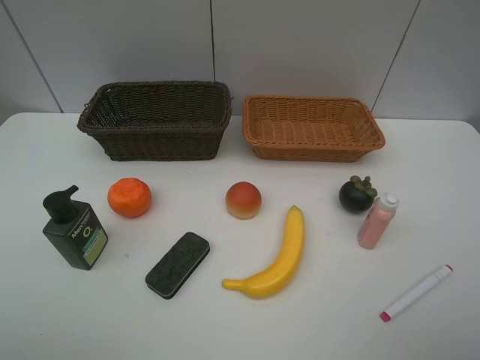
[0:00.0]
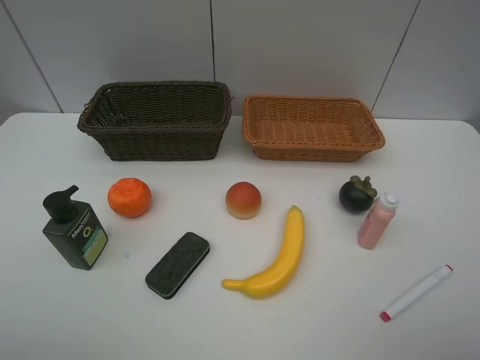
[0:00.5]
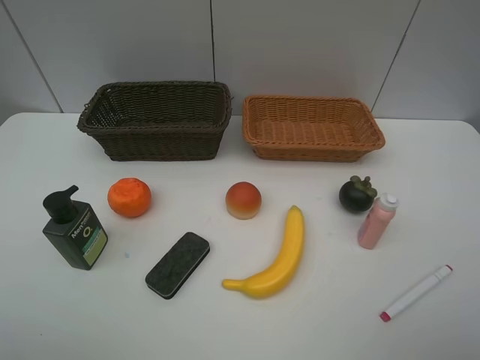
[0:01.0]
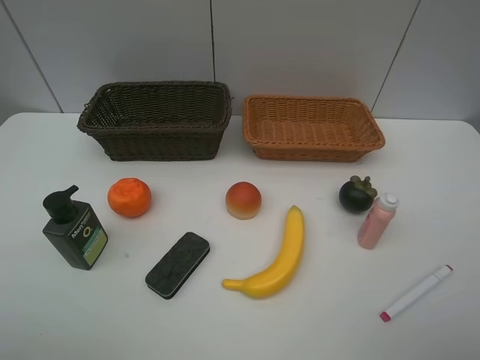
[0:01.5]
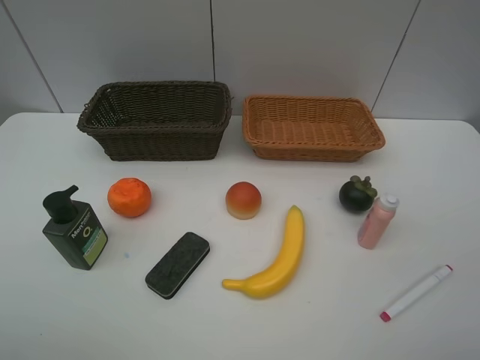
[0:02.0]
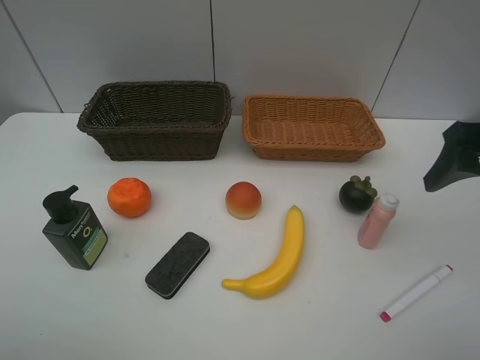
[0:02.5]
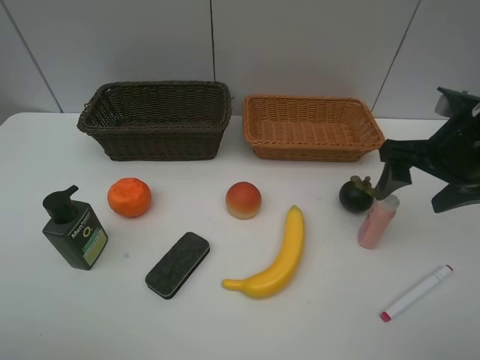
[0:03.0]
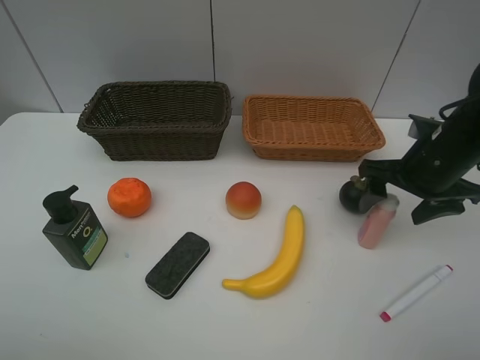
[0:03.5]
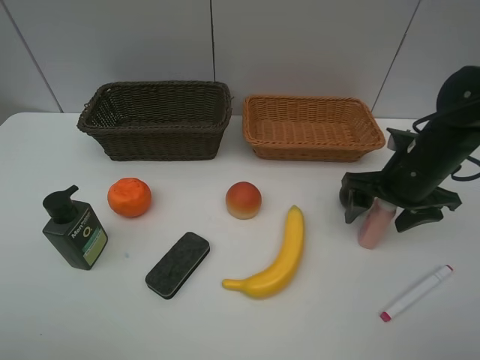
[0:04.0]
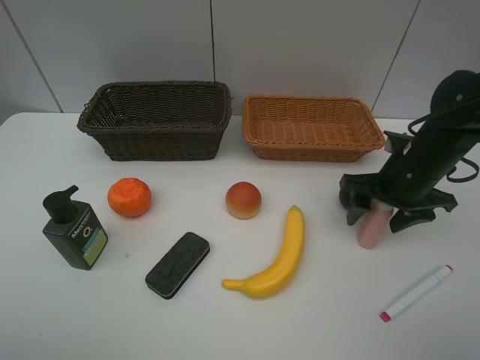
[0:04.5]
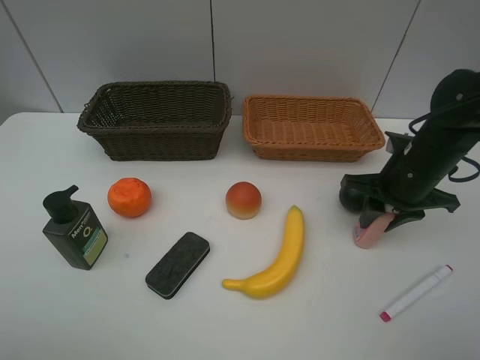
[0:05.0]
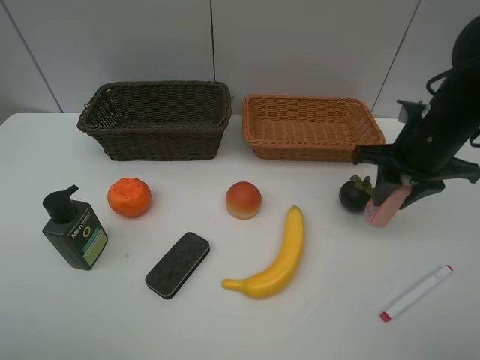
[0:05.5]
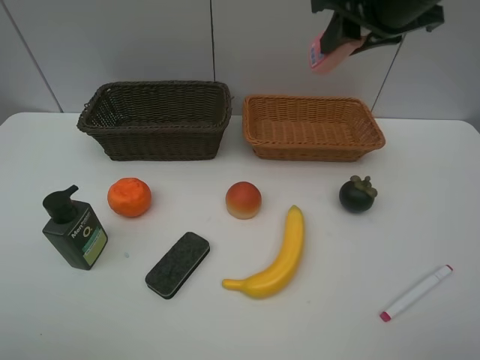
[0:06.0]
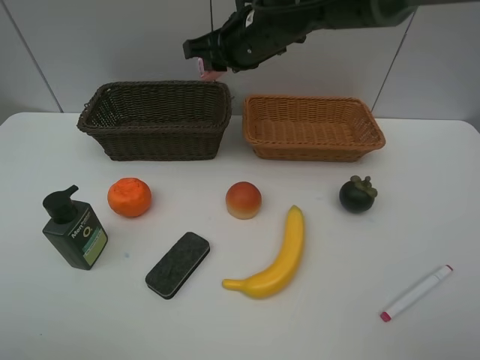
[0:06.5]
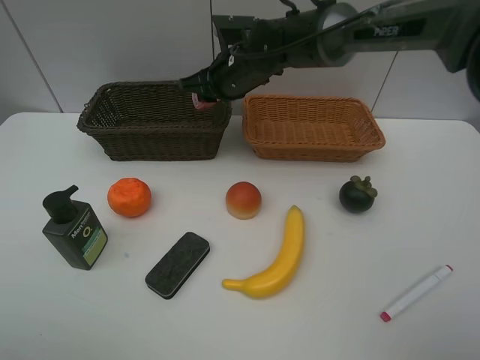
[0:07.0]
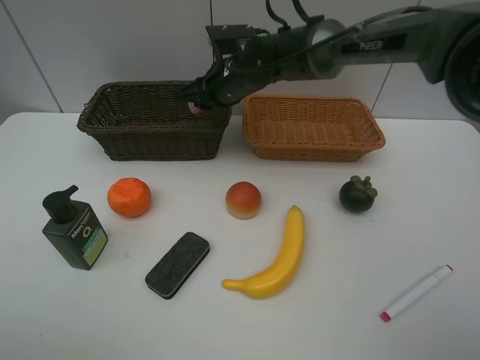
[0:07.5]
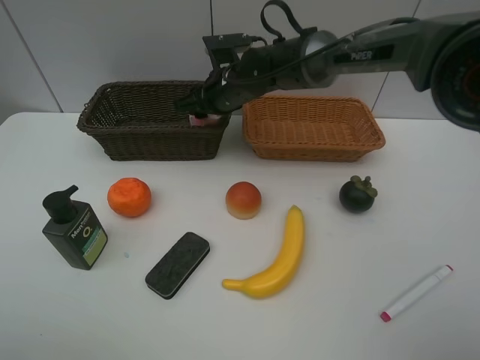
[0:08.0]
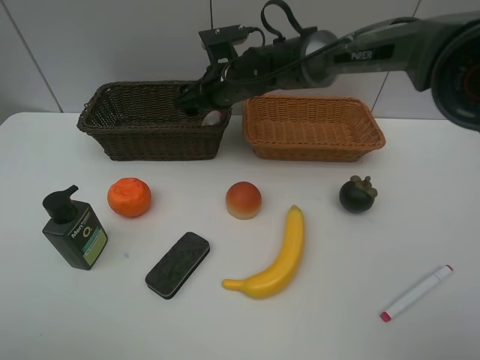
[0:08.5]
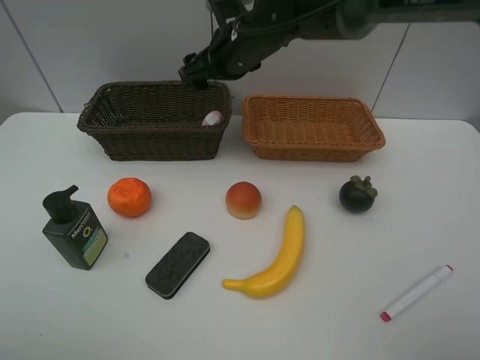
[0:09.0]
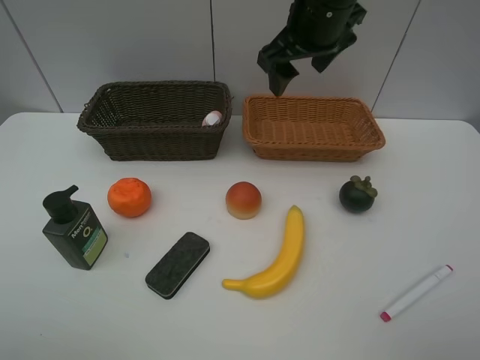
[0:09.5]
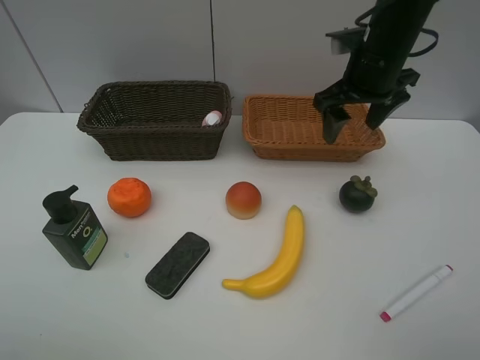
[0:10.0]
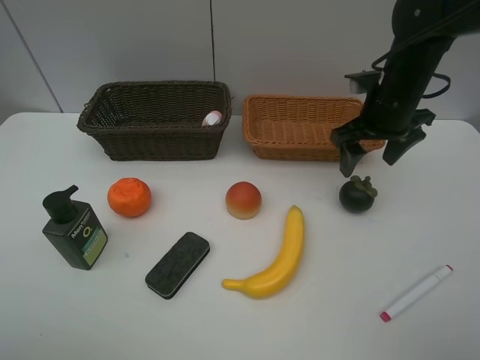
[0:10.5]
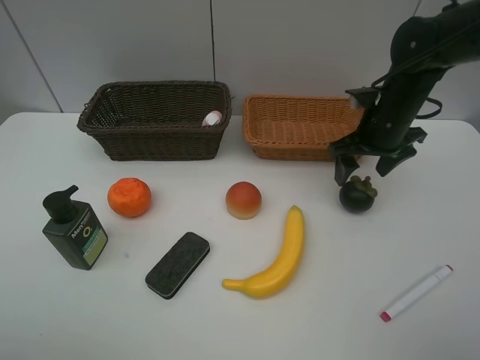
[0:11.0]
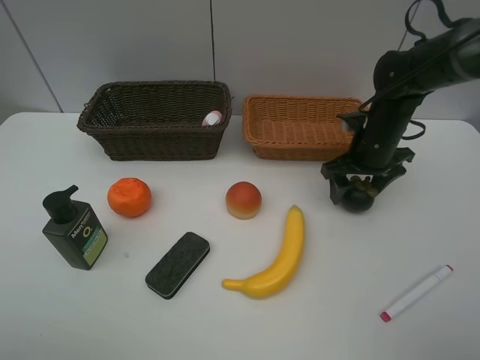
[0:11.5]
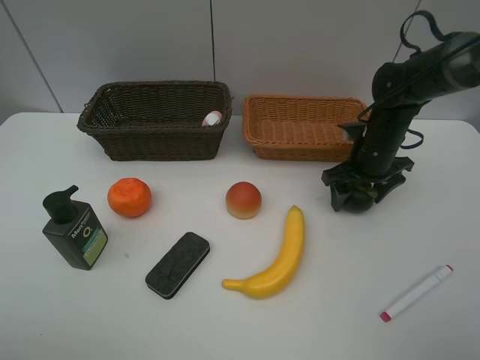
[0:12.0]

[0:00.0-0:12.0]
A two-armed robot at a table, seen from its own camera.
Task of the whole recording: Place multiple objects separately in different baskets.
Step, 0.0 to 5.0 s: Pick up the laundry detergent with right gripper.
Step, 5.5 to 8.5 s: Place the laundry detergent in the dark basket with right gripper.
2.0 to 4.0 s: The right gripper heads downward, forward and to the left, covering about 25 cm.
4.0 to 6.0 s: The right gripper moves upward and to the left, about 20 cm, and closes.
6.0 to 8.0 s: The right gripper shifts some 25 cm downward, to the left and forward, and opens up.
8.0 to 10.0 s: The right gripper shifts approximately 20 cm to the right and upward.
10.0 to 12.0 s: The right gripper shifts roughly 15 cm downward.

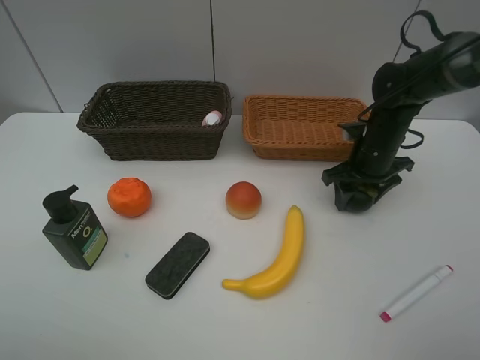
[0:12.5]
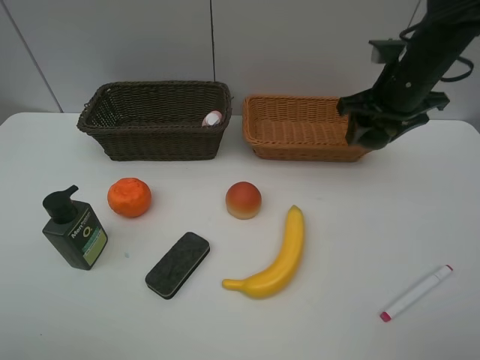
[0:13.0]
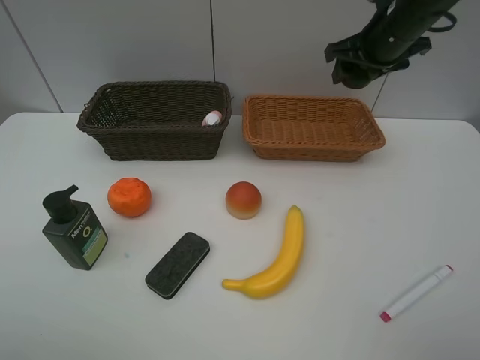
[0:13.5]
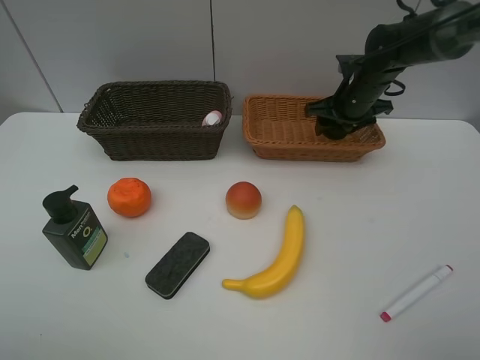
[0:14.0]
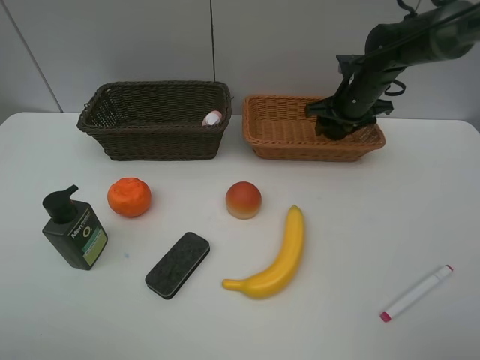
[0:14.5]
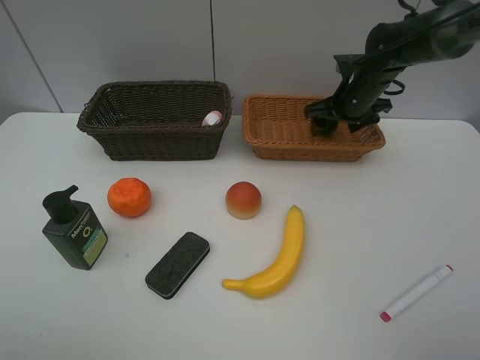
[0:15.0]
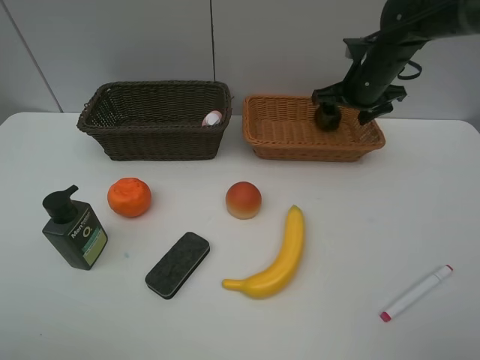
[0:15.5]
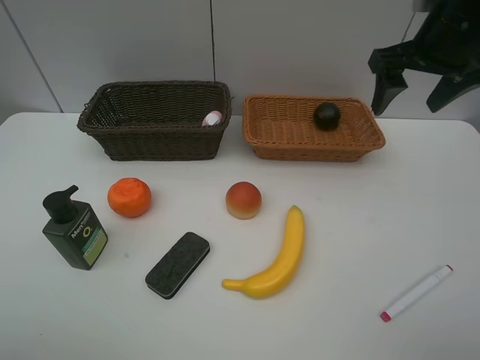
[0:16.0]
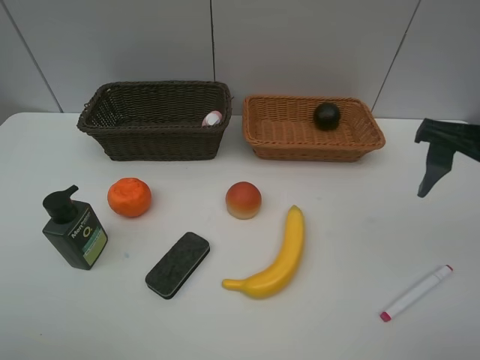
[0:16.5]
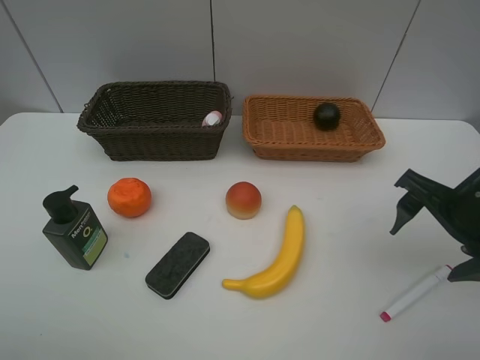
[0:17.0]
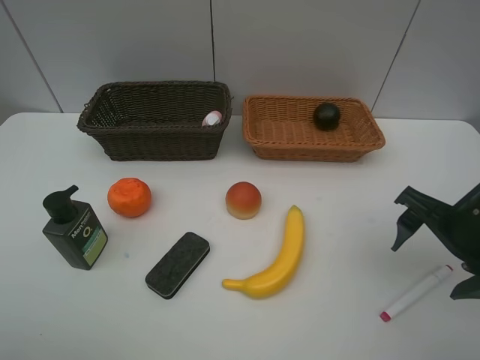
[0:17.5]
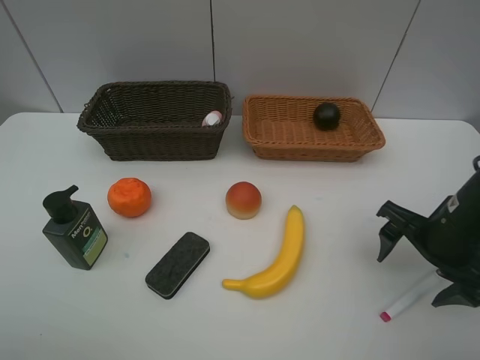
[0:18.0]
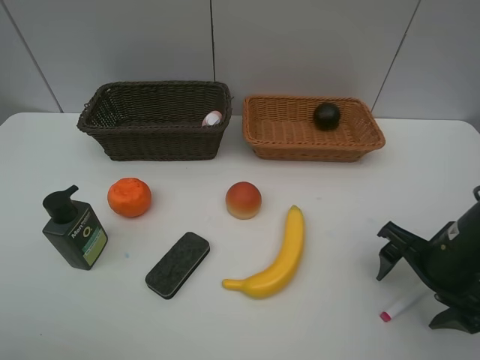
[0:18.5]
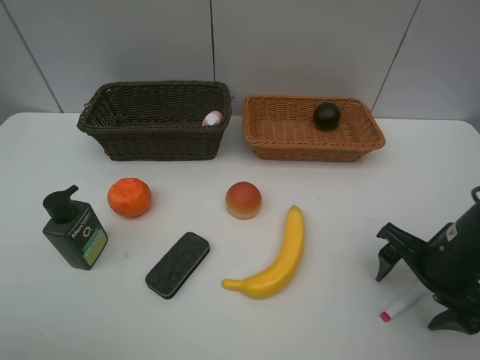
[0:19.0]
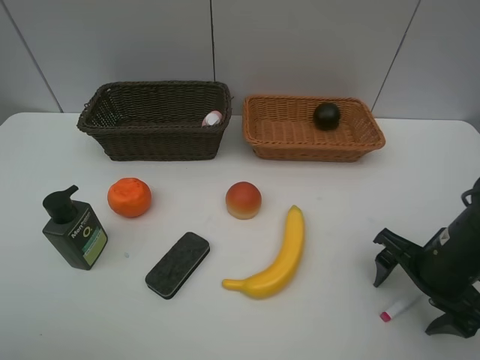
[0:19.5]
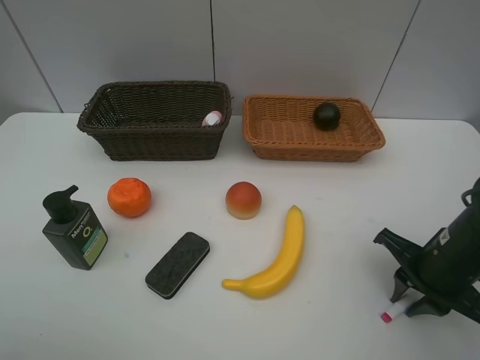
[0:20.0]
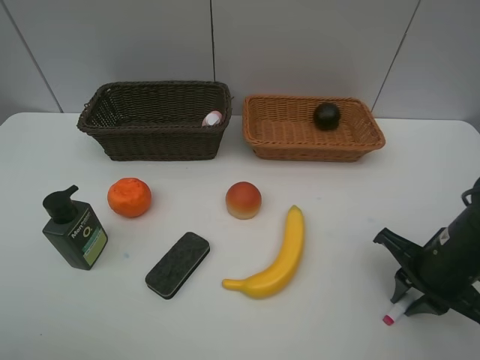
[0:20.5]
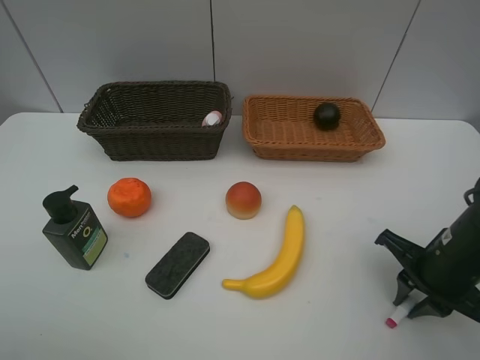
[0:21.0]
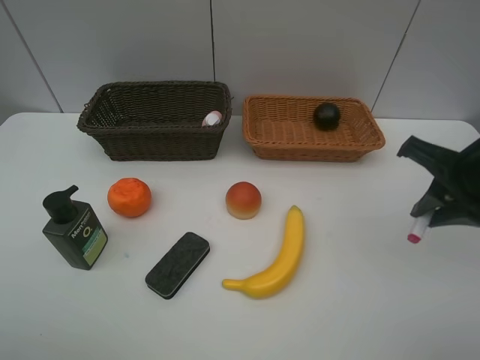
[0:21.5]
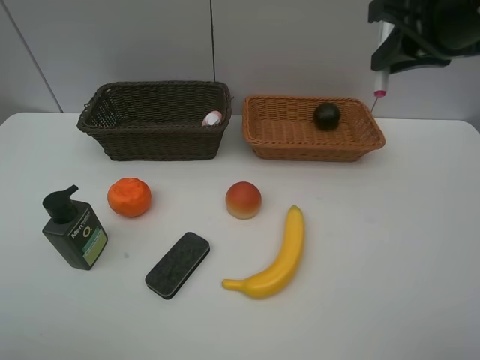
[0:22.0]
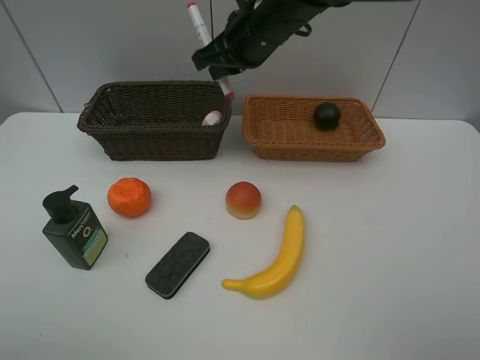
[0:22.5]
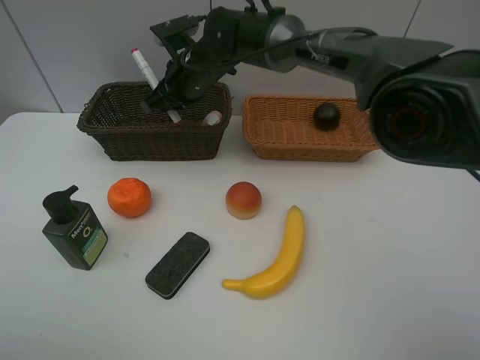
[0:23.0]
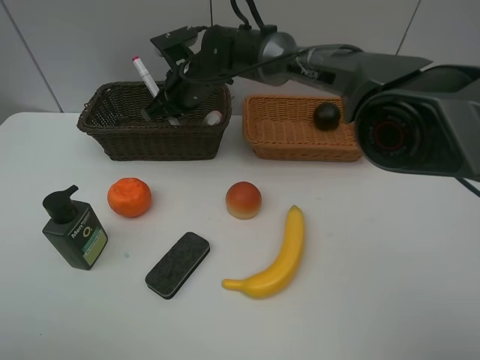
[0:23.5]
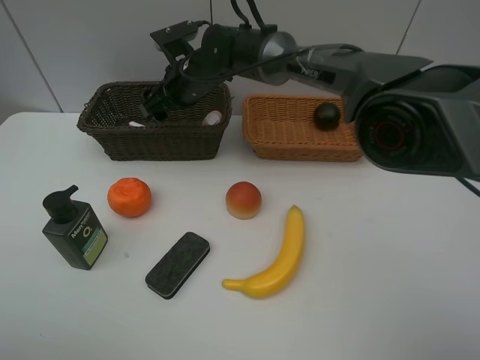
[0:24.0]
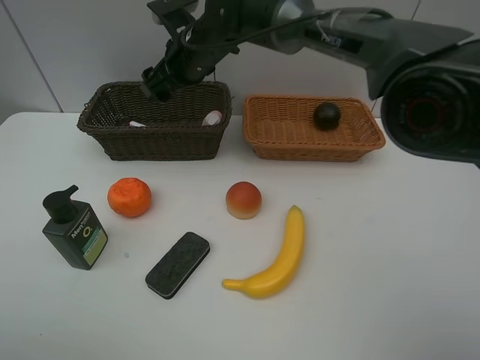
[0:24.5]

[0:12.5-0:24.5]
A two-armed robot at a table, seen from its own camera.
Task of the whole recording: Place multiple objects separately in different baskets.
Step, 13.0 to 15.5 s: Place the mangosteen in the light basket with right gripper.
Step, 16.0 to 21.0 s: Pick up the red marker with right gripper.
Step, 21.5 to 24.0 s: Place the red marker in the dark basket with right gripper.
12.5 to 14.5 s: The right gripper moves forward, approximately 10 cm, and moves about 15 cm upward and comes back.
14.5 to 16.5 s: The right gripper heads backward and upward, covering approximately 25 cm.
16.5 to 18.5 s: The right gripper is displaced downward by approximately 15 cm.
18.5 to 20.5 s: The right gripper closes up.
20.5 to 22.5 s: The right gripper heads to the left, forward and upward, covering roughly 35 cm.
22.5 to 24.5 s: The right gripper is displaced to the left by about 5 cm, moves about 10 cm downward and comes back, and opens its fingers.

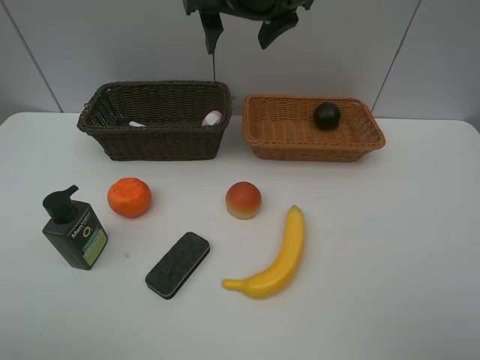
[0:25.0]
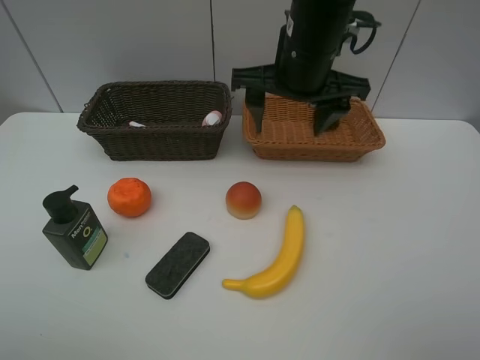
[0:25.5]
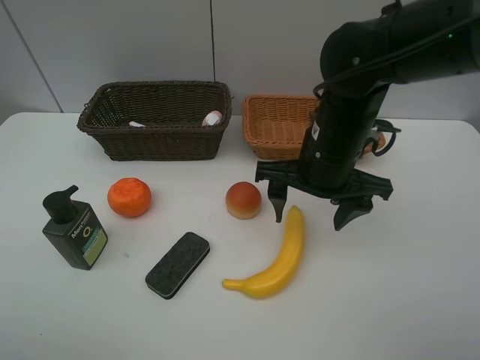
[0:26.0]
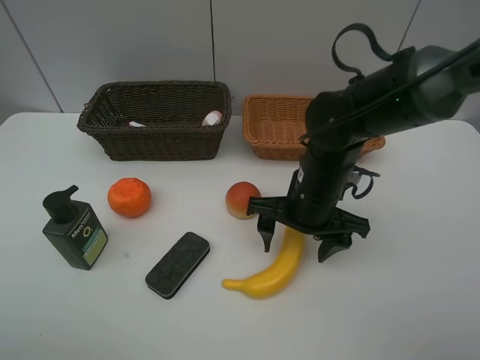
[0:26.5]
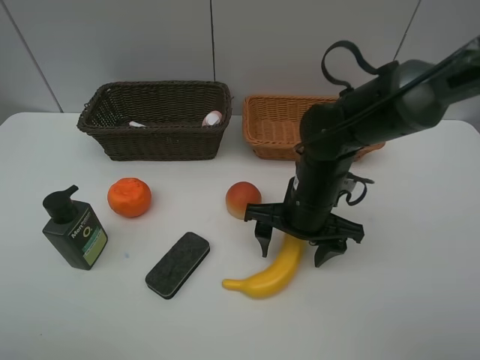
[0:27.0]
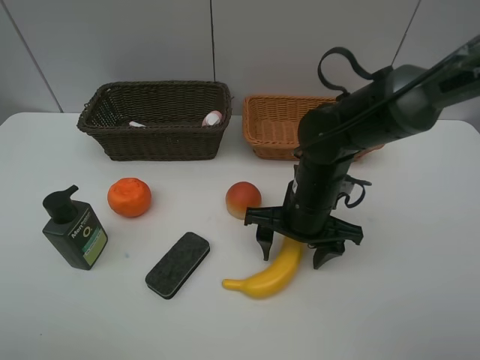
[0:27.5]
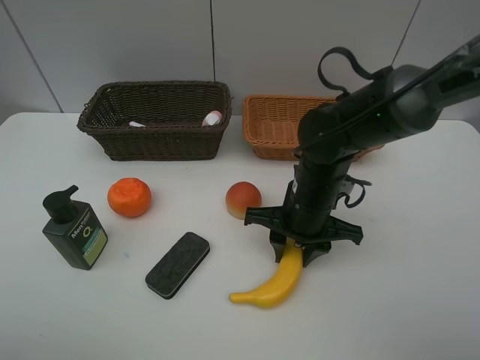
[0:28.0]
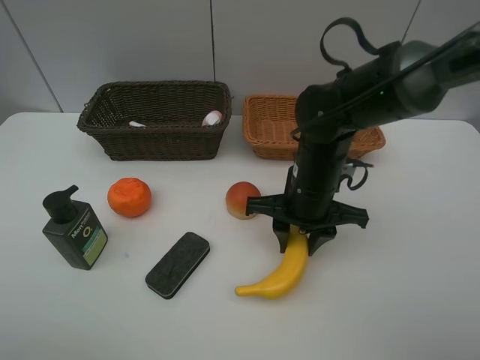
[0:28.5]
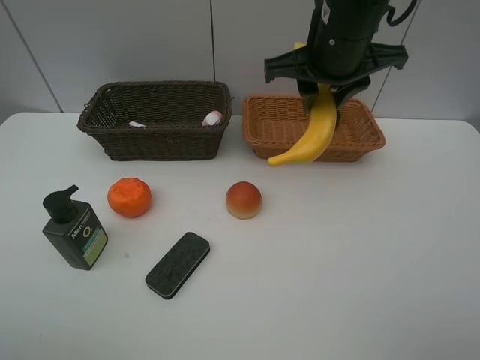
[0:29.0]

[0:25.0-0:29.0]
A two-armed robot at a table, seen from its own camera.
Task of the whole recording: Place multiple objects separately in different baskets.
Step, 25.0 to 28.5 s: Pick up banana with right gripper.
25.0 to 27.0 s: The right gripper goes some 25 cm downward and backward.
27.0 to 29.0 s: The right gripper travels upward by approximately 20 cm, and closes.
